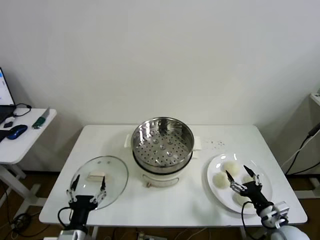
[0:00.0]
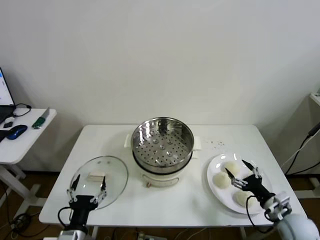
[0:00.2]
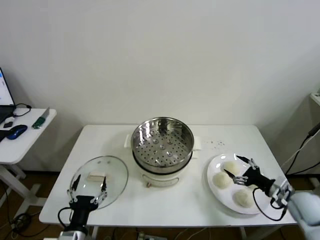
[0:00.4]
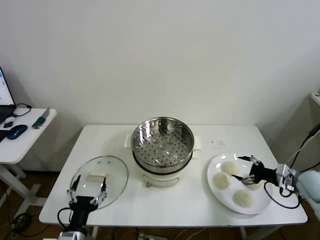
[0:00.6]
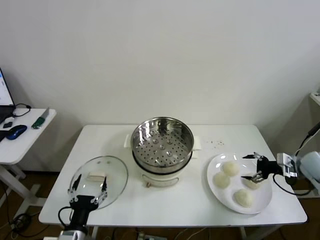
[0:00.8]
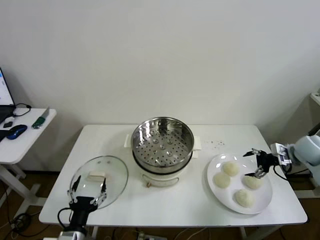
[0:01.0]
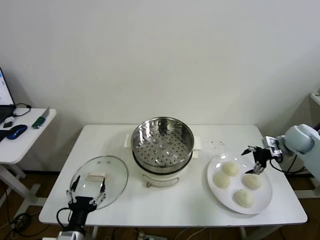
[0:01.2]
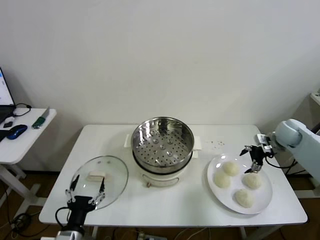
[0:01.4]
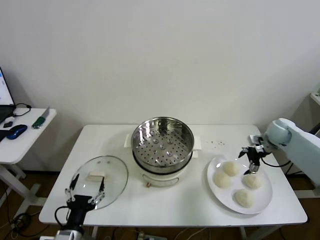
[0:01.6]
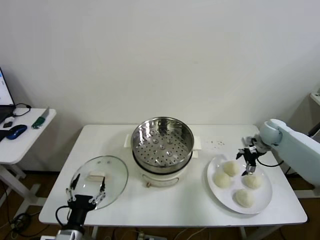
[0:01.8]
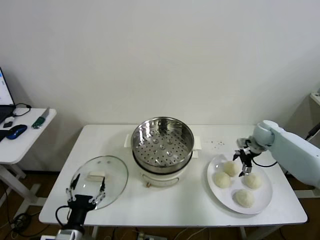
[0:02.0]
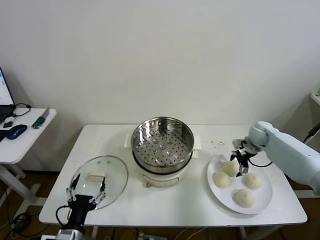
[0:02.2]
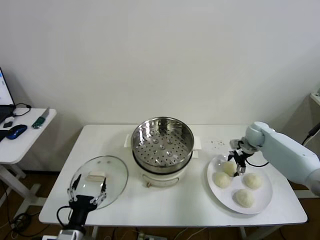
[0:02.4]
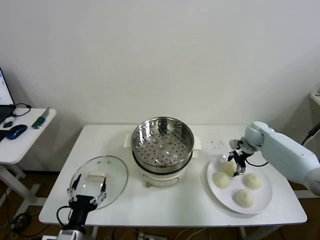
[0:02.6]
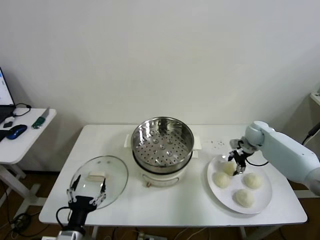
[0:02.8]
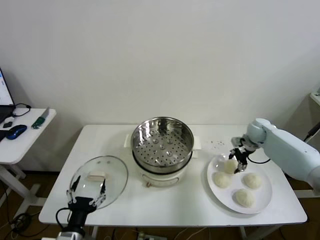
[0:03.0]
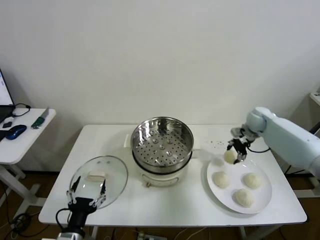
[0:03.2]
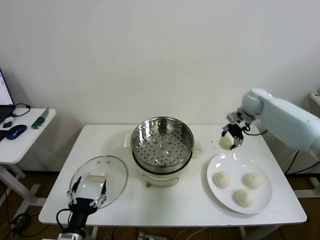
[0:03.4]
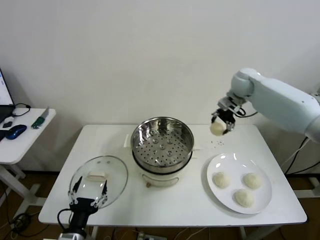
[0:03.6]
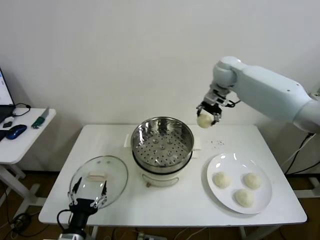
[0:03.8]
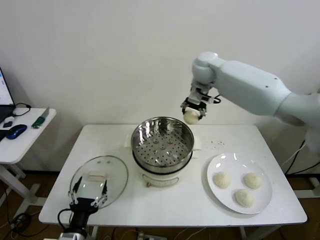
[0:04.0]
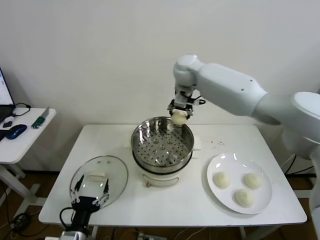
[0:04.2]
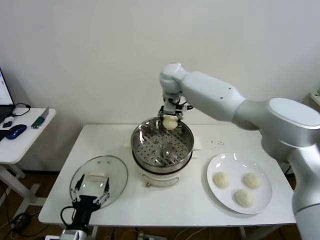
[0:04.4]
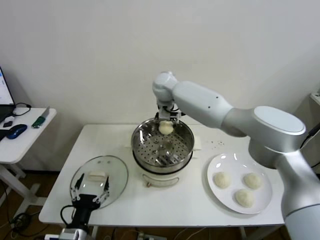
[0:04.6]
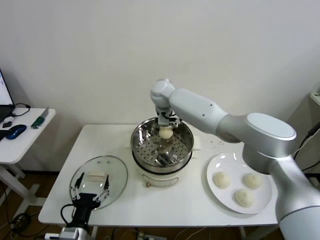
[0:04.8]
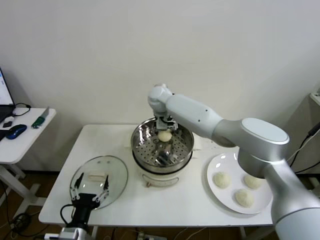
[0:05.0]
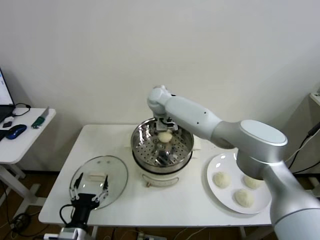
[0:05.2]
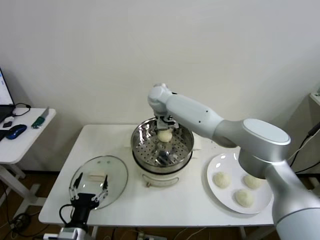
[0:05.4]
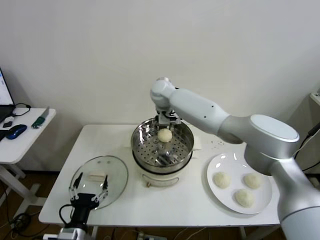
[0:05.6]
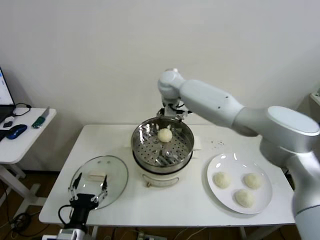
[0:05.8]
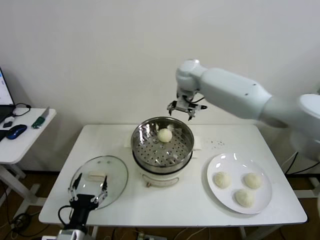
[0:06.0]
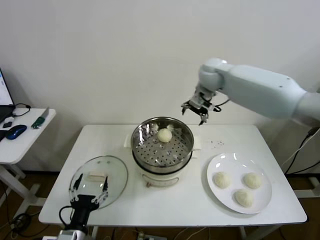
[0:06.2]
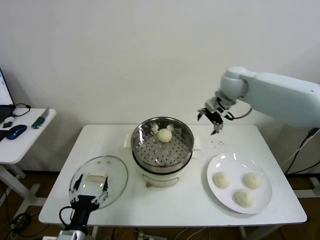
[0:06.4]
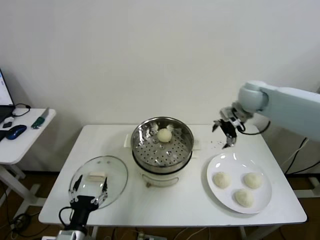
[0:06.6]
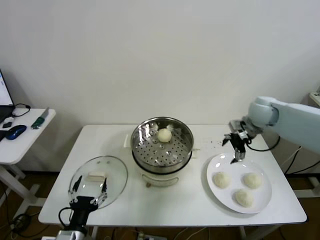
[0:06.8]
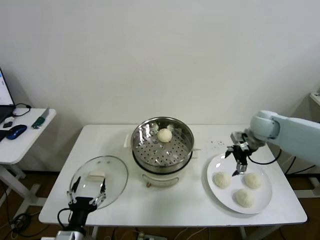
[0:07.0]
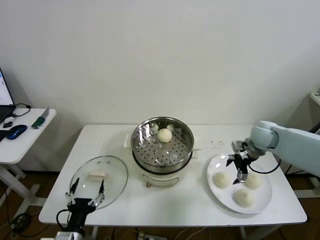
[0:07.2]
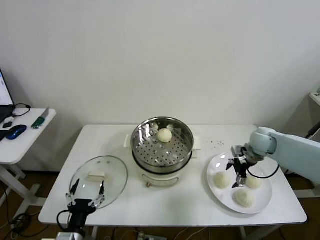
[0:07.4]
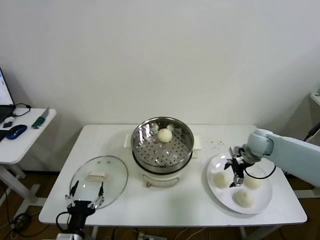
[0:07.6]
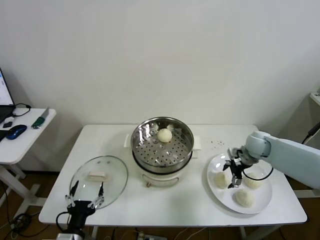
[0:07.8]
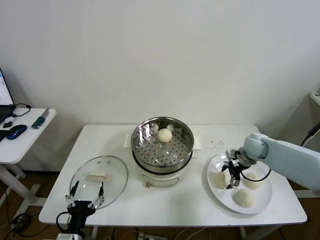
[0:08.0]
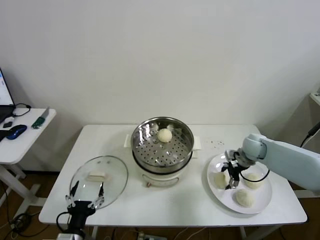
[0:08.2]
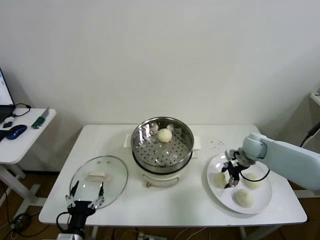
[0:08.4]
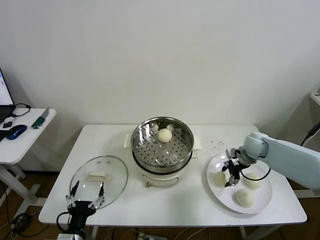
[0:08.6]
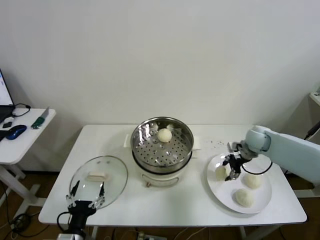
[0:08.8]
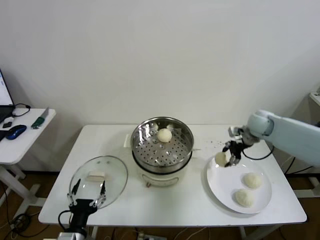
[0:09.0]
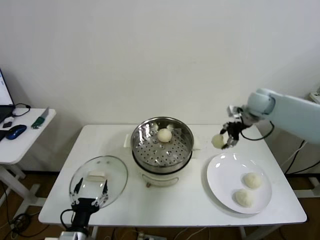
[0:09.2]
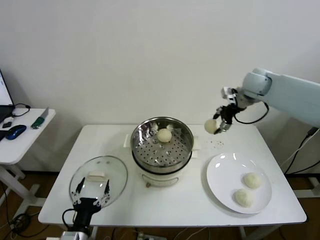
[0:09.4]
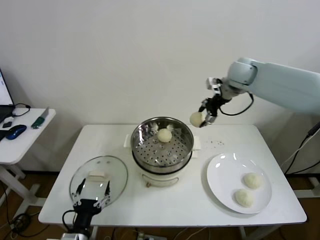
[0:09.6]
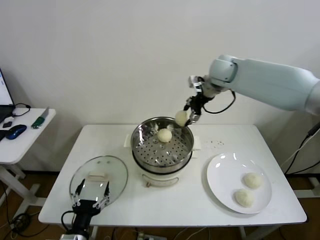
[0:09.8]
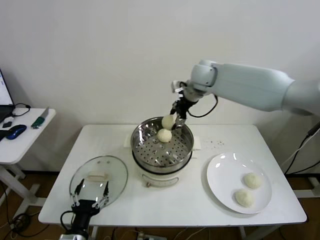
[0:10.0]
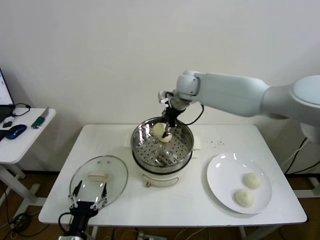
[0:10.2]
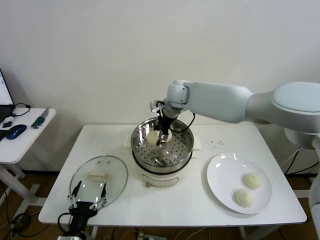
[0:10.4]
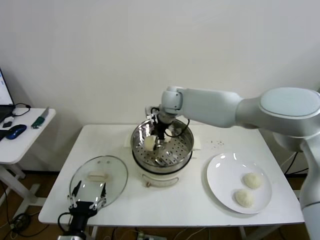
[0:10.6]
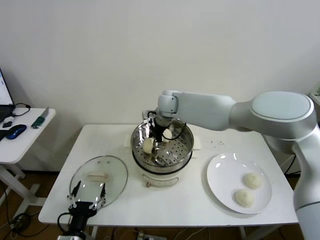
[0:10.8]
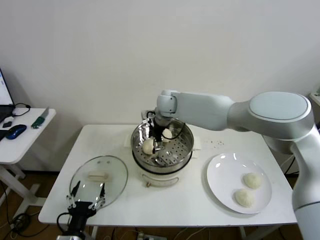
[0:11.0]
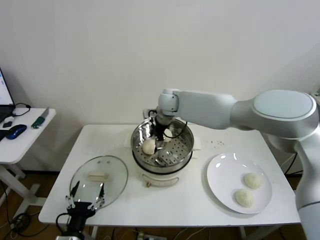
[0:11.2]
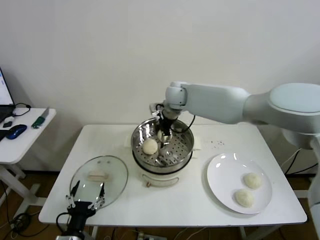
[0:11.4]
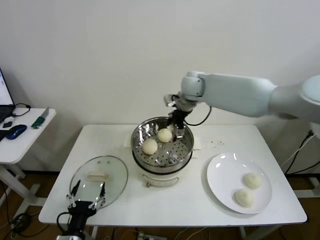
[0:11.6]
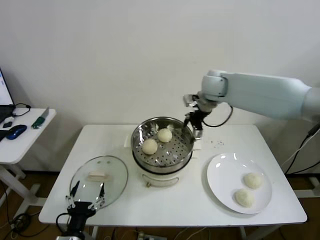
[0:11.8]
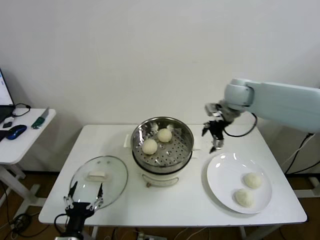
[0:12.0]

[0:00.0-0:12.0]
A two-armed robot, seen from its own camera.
Step, 0:00.0 to 0:02.4: Grasp the baozi in the plate with right gripper.
Step, 0:02.6 to 0:05.2: Place the baozi on the steamer with right gripper.
Step, 0:05.4 to 0:08.2: Grasp the baozi in the plate with right gripper.
Step, 0:08.4 to 0:10.8: Place the baozi on the steamer with right gripper.
0:01.6 to 0:03.0: The right gripper shifts by about 5 cm, and closes up.
0:03.0 to 0:04.4: The right gripper is displaced to the left and upward by about 40 cm.
0:04.4 to 0:06.0: The right gripper heads to the right, covering approximately 10 cm, and opens.
0:06.0 to 0:07.6: The right gripper goes approximately 35 cm to the right, downward and backward.
0:07.6 to 0:09.0: The right gripper goes roughly 5 cm upward, and closes.
0:09.0 to 0:10.4: The right gripper goes roughly 30 cm to the left.
0:10.4 to 0:12.0: The right gripper travels to the right by approximately 20 cm, and opens up.

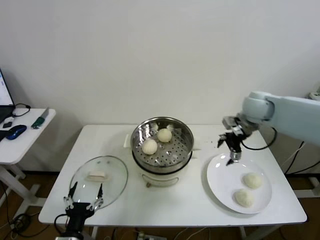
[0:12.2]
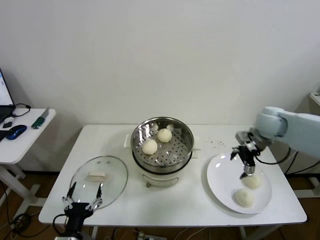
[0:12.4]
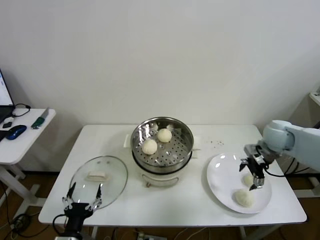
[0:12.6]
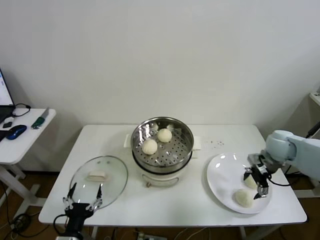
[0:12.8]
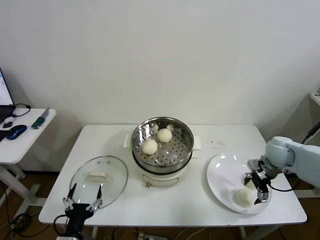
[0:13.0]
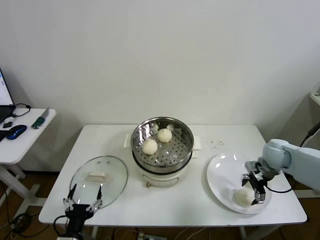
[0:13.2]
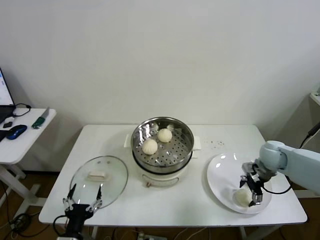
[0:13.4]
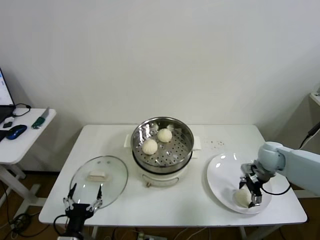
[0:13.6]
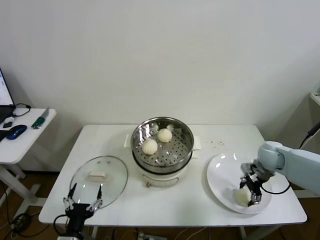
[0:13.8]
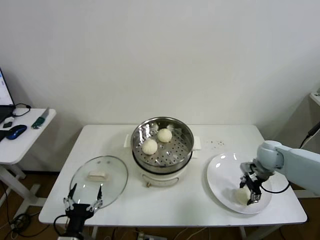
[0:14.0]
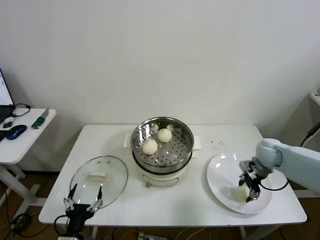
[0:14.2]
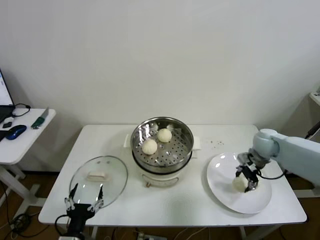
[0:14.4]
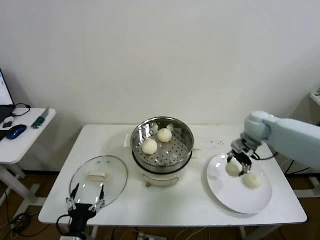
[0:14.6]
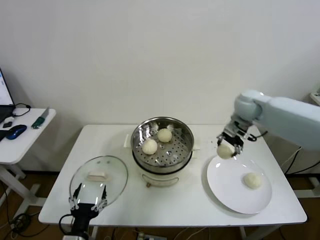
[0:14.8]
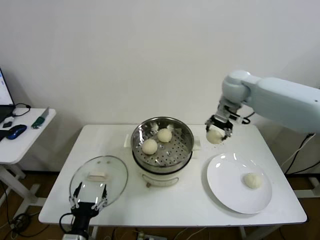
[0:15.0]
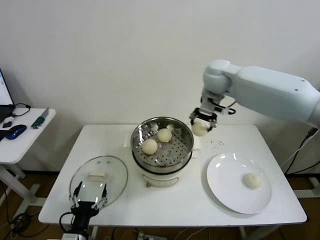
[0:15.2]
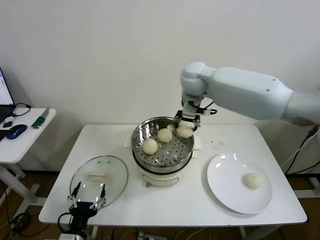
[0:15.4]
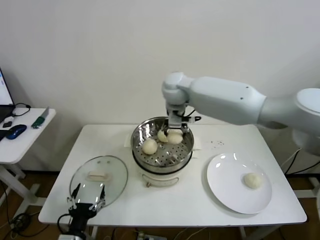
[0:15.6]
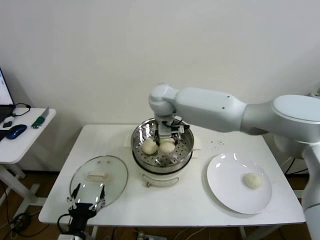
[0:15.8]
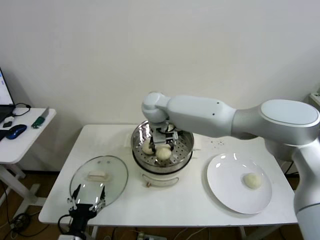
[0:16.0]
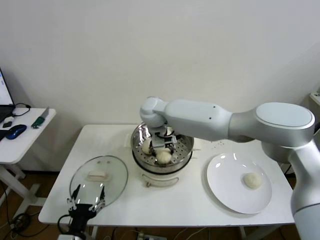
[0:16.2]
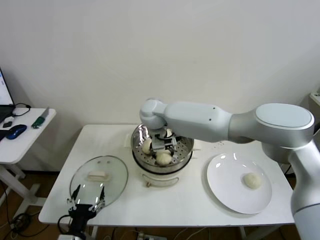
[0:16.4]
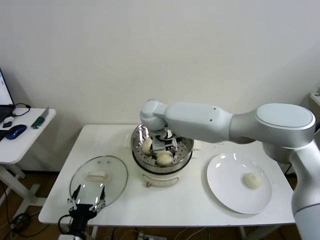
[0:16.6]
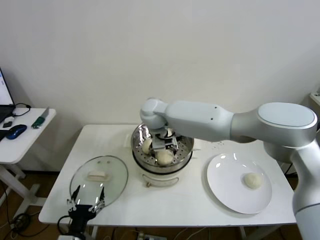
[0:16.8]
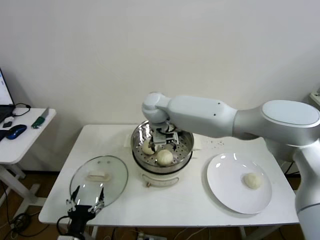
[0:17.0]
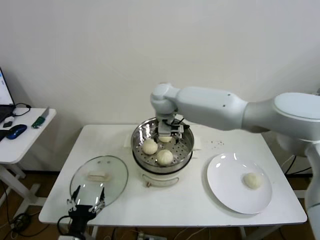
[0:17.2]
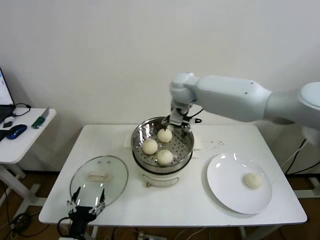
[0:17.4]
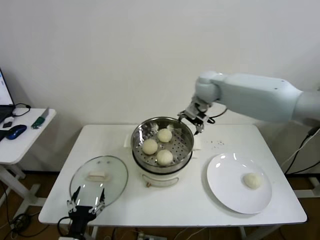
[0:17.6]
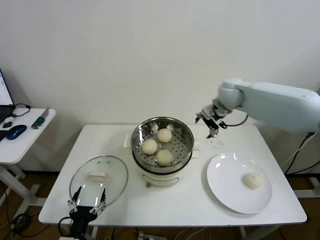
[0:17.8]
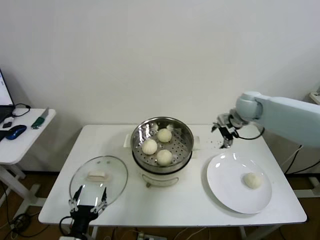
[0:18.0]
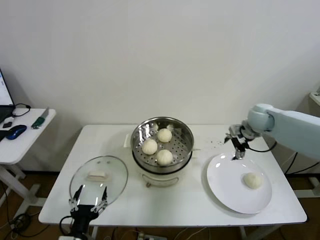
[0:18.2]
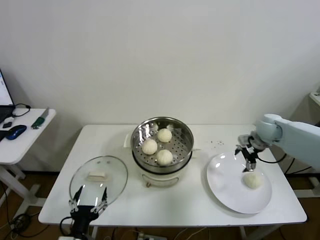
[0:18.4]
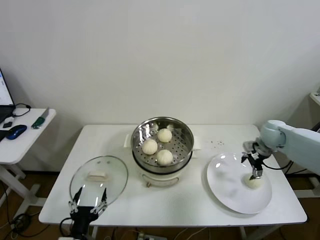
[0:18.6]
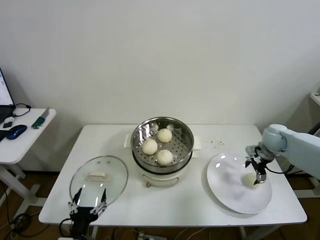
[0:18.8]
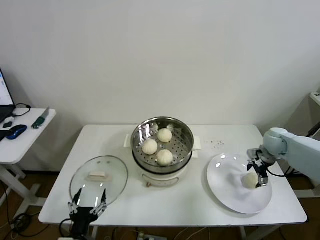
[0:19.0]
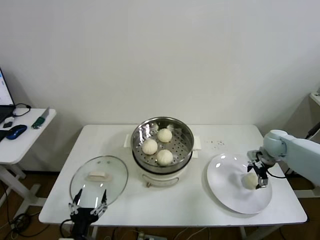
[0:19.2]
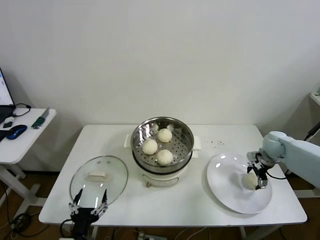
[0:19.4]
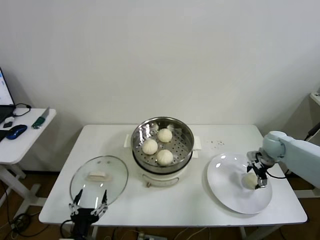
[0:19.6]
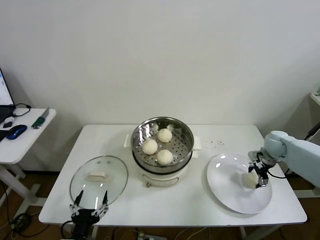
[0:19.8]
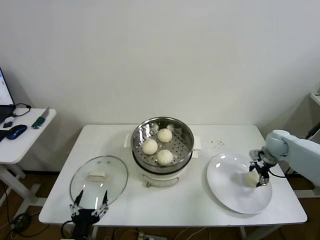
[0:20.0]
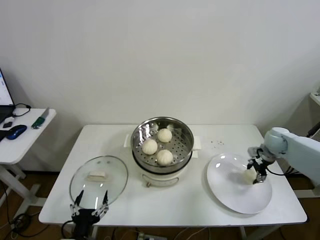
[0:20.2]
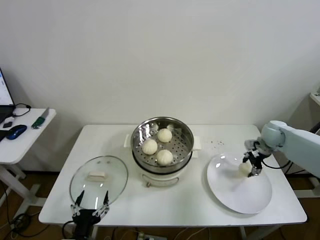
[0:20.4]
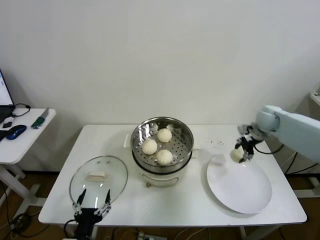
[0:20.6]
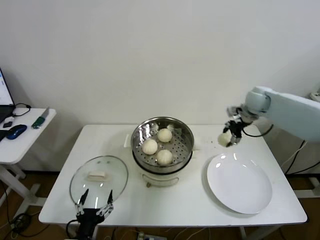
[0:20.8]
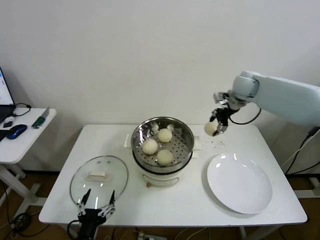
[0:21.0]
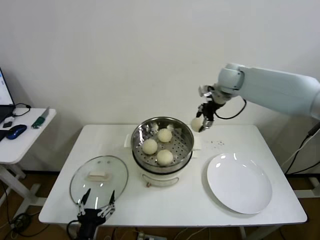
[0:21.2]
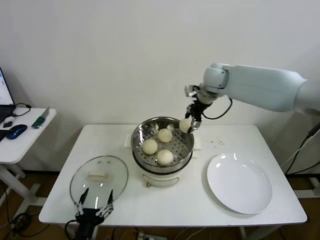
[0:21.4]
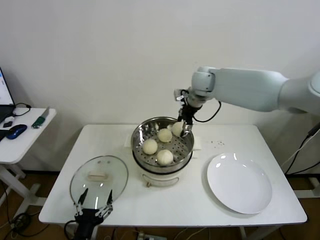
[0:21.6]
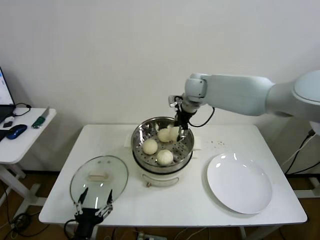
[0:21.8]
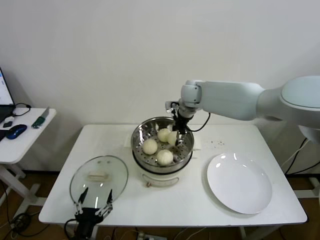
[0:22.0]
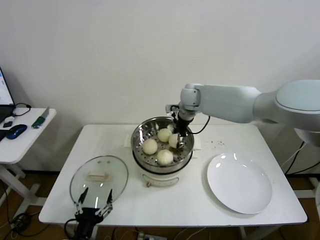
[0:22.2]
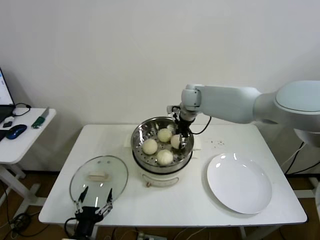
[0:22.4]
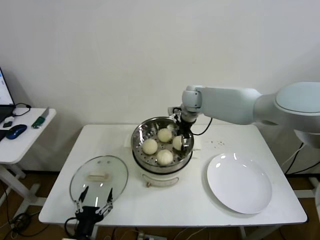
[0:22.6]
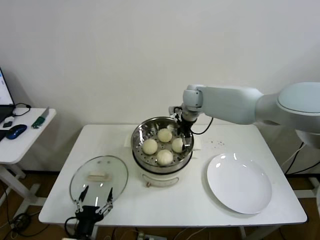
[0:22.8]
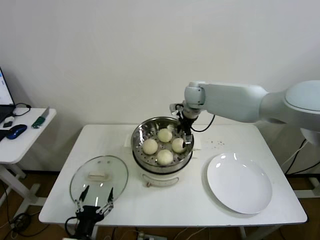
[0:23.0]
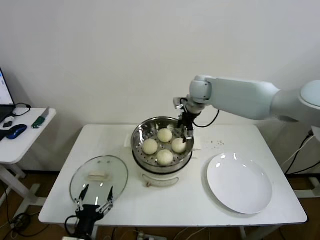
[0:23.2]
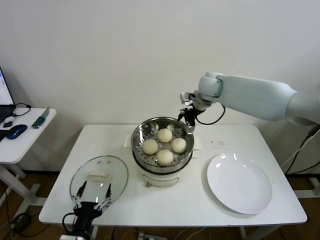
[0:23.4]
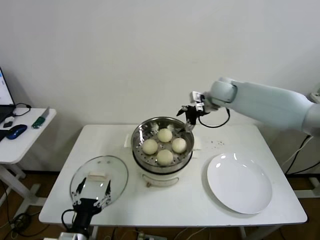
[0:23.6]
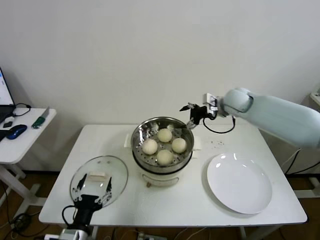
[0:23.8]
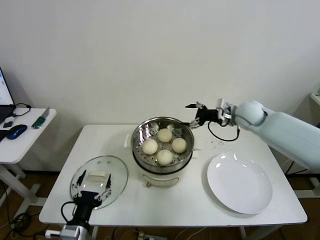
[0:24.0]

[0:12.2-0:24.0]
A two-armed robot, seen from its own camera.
Step, 0:12.2 to 0:13.6: Grasp the baozi in the plate with right gripper.
Step, 0:13.8 to 0:16.6: Place the baozi on the steamer with right gripper.
Step, 0:16.8 to 0:19.8: Grasp the baozi in the plate with right gripper.
Step, 0:20.0 to 0:22.6: Place the baozi on the steamer with right gripper.
0:12.2 to 0:13.6: The right gripper travels downward and to the right by roughly 20 cm.
0:13.6 to 0:15.2: The right gripper heads upward, to the left and forward, covering about 35 cm, and closes.
0:15.2 to 0:16.6: The right gripper is displaced to the left and downward by approximately 25 cm, and opens up.
0:16.6 to 0:18.2: The right gripper is displaced to the right by some 40 cm, and opens its fingers.
0:18.2 to 0:19.6: The right gripper shifts about 15 cm downward and to the right.
0:19.6 to 0:21.0: The right gripper heads upward, to the left and forward, covering approximately 25 cm, and closes.
0:21.0 to 0:22.6: The right gripper is displaced to the left by some 15 cm, and opens its fingers.
0:22.6 to 0:24.0: The right gripper travels to the right by roughly 20 cm, and opens up.
